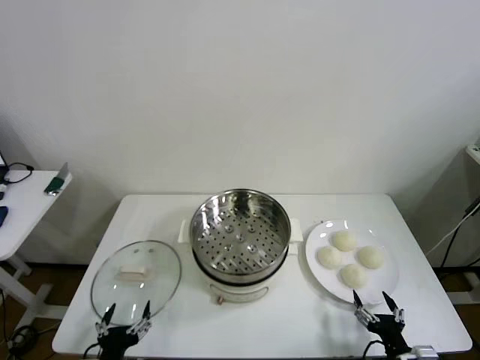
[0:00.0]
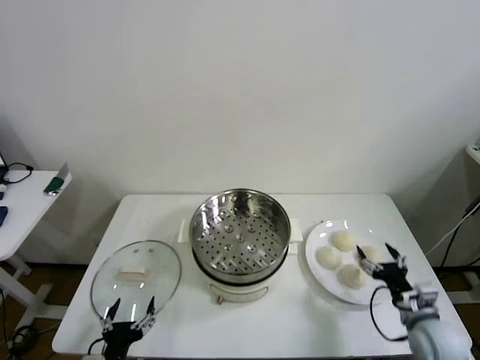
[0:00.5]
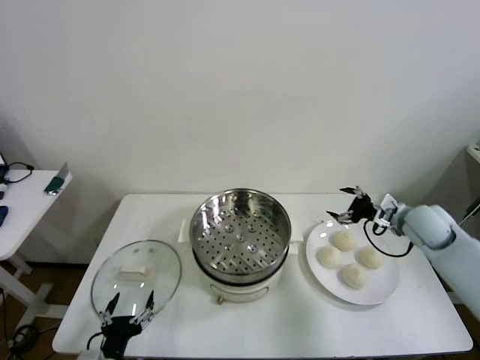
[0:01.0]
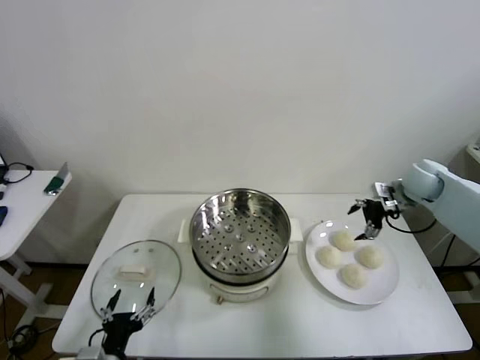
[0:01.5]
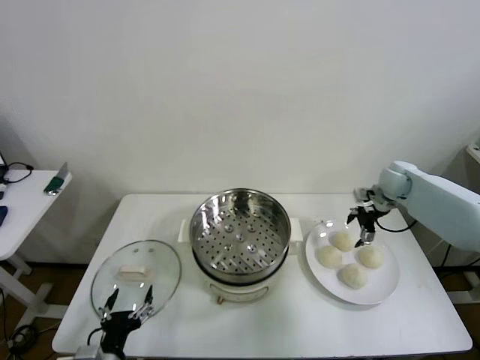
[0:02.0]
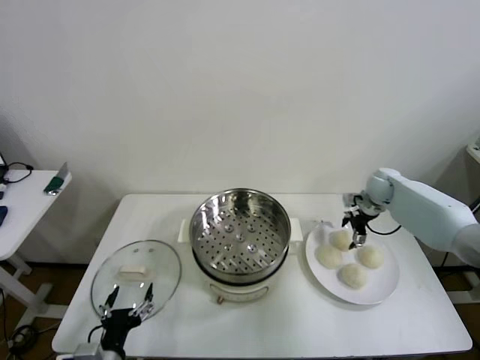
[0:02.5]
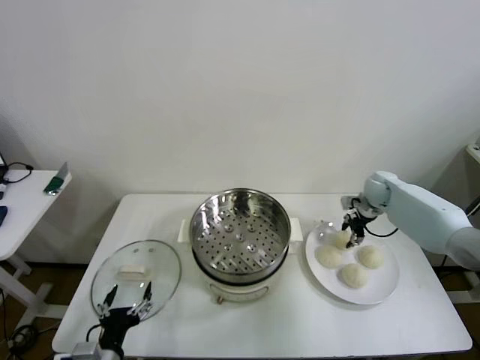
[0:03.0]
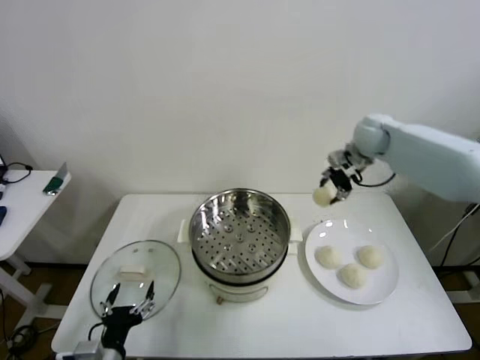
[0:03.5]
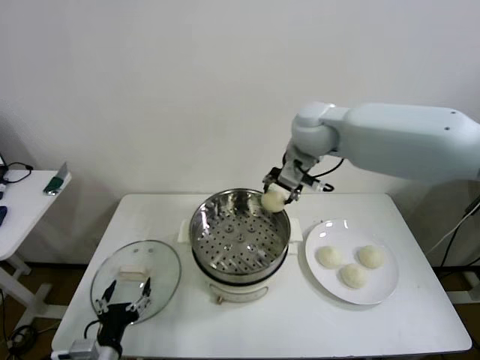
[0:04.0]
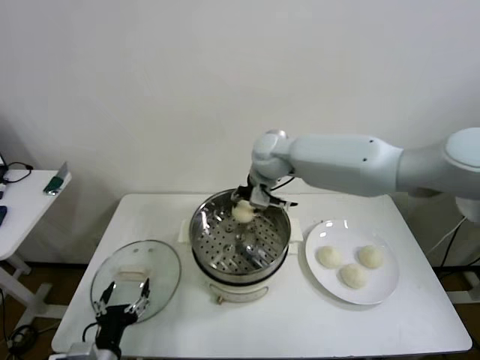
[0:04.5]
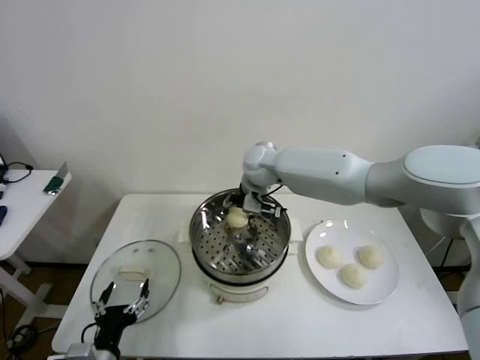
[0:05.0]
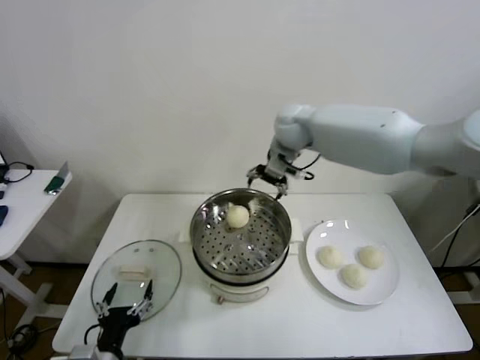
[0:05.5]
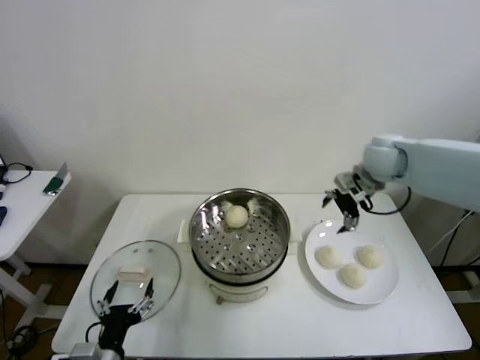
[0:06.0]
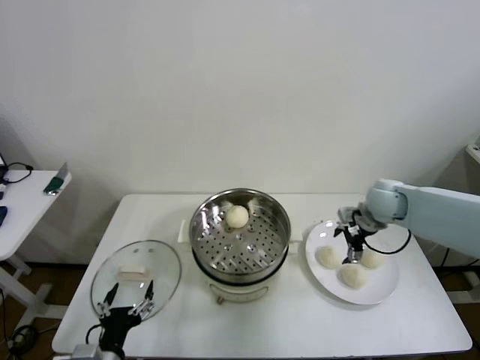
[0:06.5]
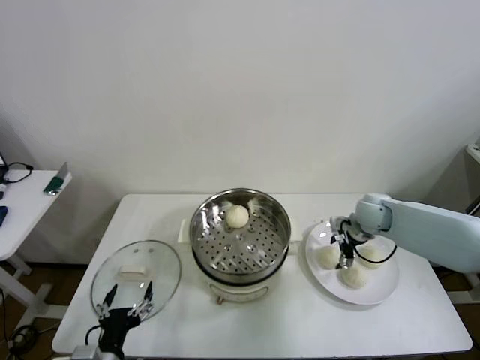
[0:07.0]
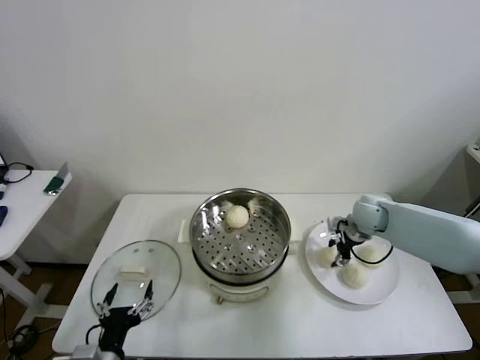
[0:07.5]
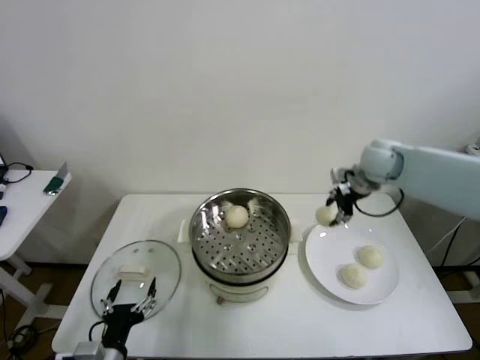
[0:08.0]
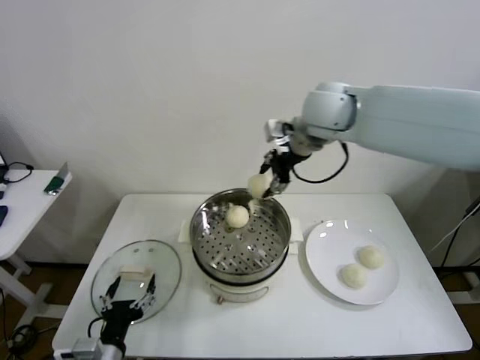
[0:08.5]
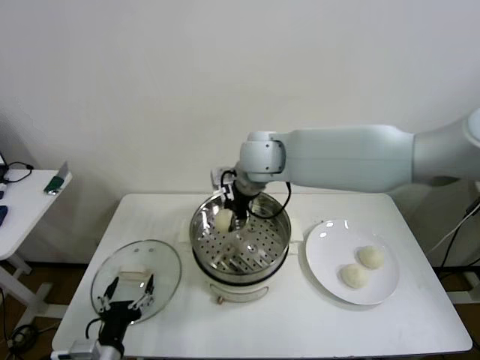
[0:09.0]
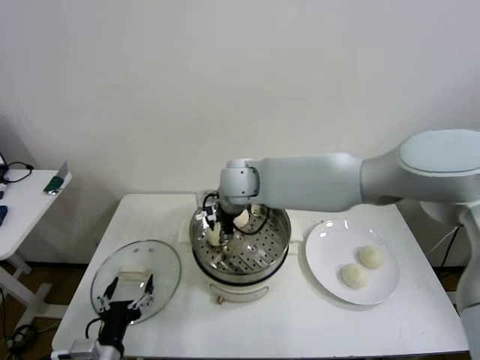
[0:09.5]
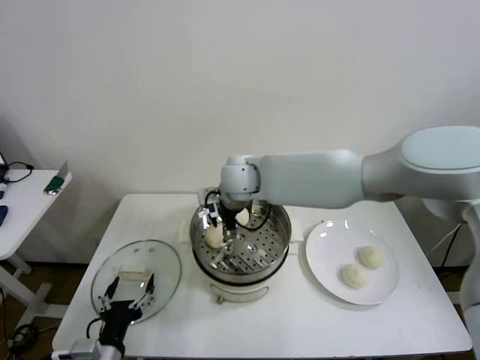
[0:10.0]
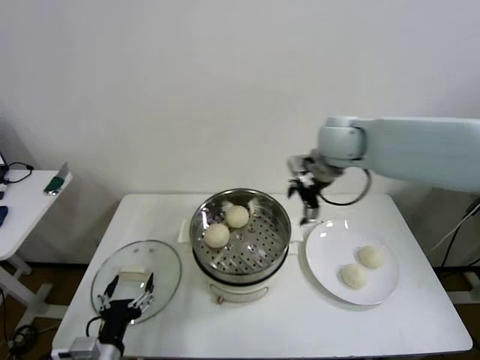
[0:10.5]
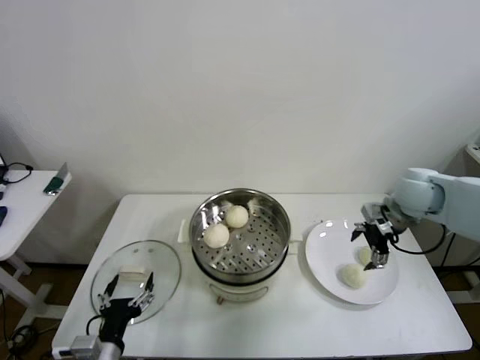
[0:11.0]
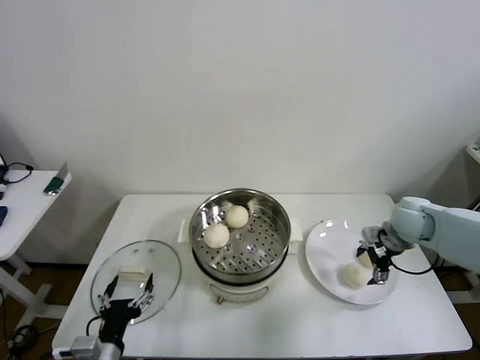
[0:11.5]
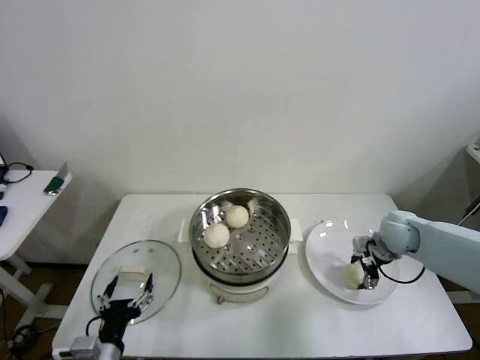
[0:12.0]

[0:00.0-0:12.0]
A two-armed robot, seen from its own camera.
Step, 0.0 to 2.5 s: Grasp the baozi in the plate with right gripper.
Step, 3.0 to 5.0 s: Place the baozi on the steamer with right gripper.
Step, 5.5 to 7.0 s: Grasp the baozi in the plate with right gripper.
Step, 7.5 to 10.0 s: Place the baozi on the steamer with right gripper.
2.0 to 4.0 s: The right gripper heads to the left and upward, covering about 35 cm, and closes up.
4.0 to 6.0 s: The right gripper shifts some 20 cm to the right and downward, and opens its fingers.
6.0 to 8.0 s: The right gripper travels downward and back again, about 15 cm each way, and closes up.
8.0 to 10.0 s: The right gripper is displaced to the left by about 30 cm, and opens its fingers.
10.0 to 12.0 s: The right gripper is displaced to the right and downward by approximately 40 cm, and closes.

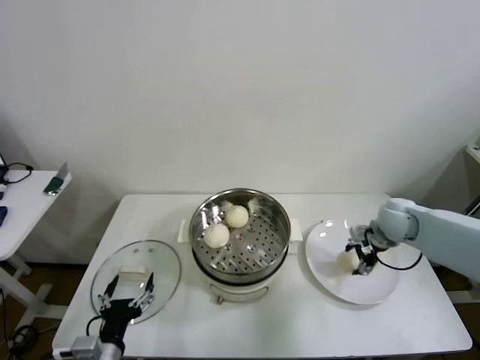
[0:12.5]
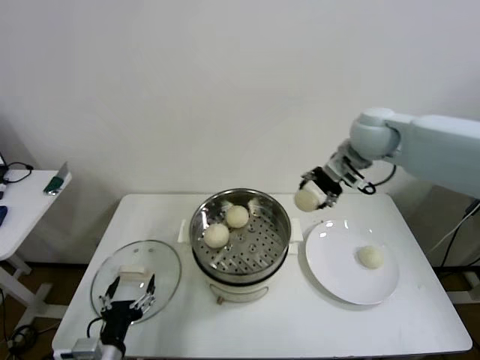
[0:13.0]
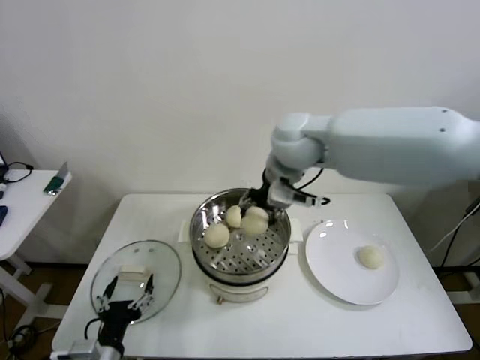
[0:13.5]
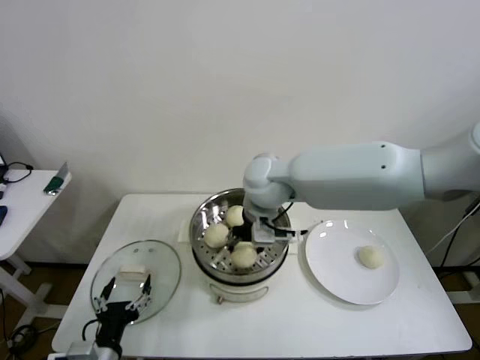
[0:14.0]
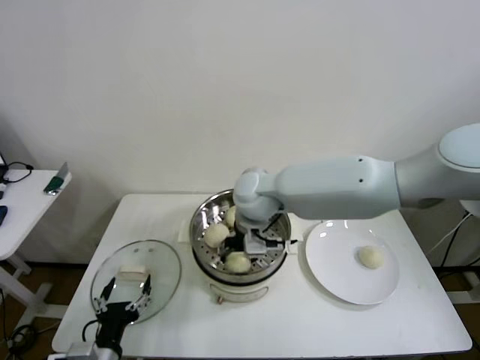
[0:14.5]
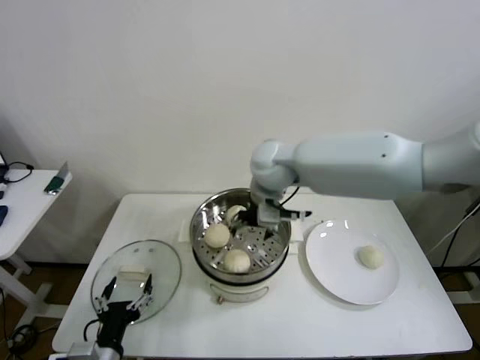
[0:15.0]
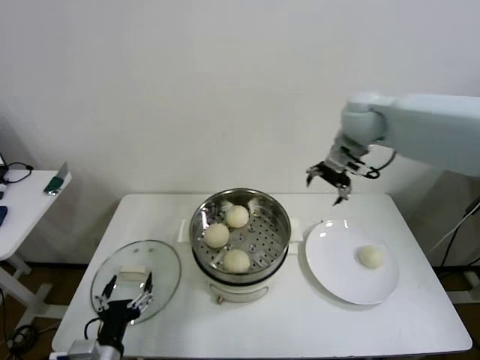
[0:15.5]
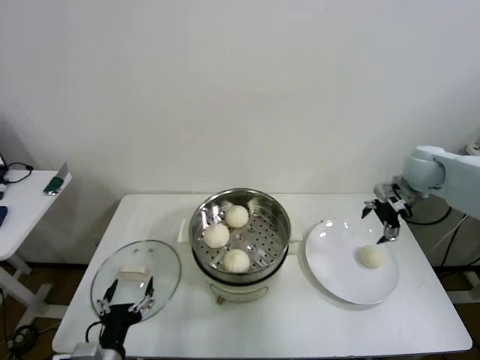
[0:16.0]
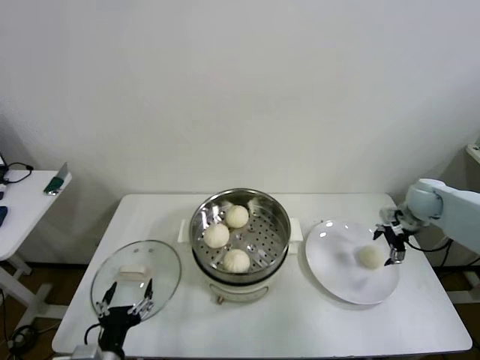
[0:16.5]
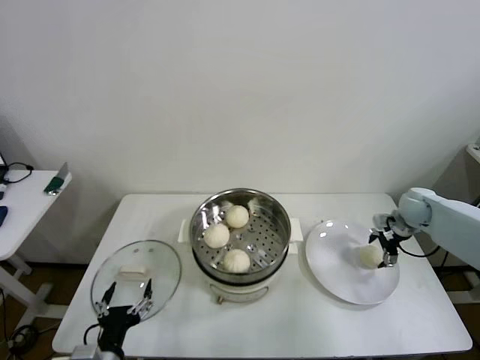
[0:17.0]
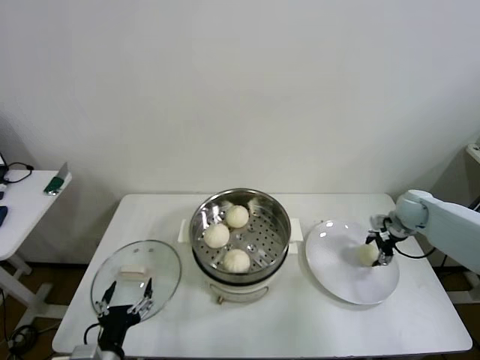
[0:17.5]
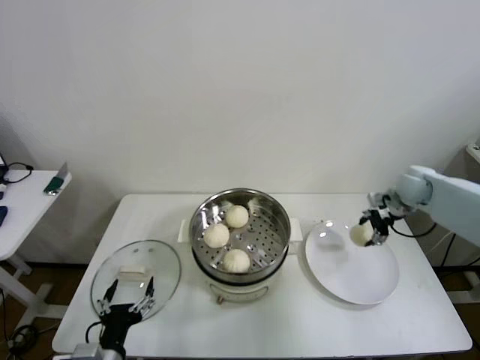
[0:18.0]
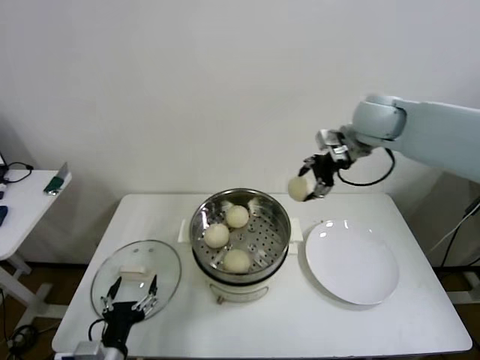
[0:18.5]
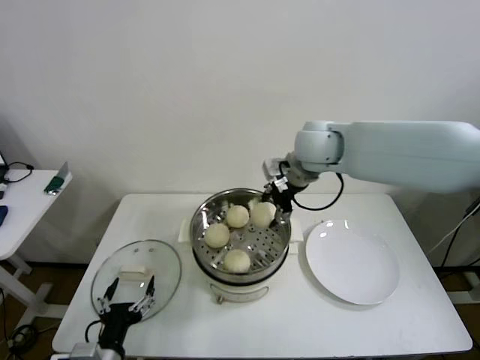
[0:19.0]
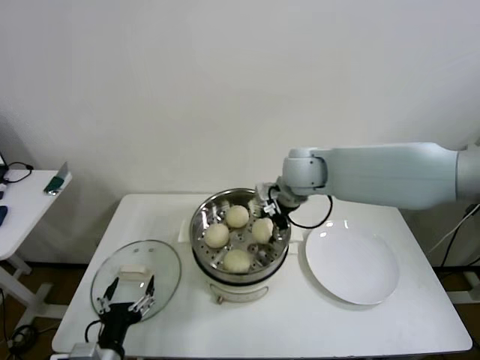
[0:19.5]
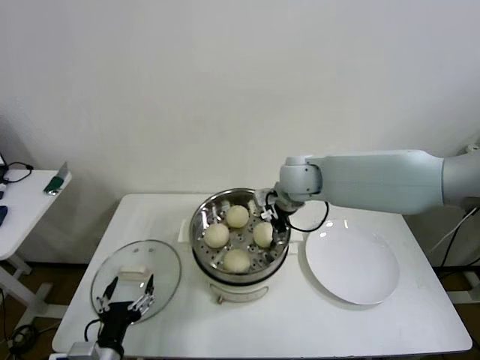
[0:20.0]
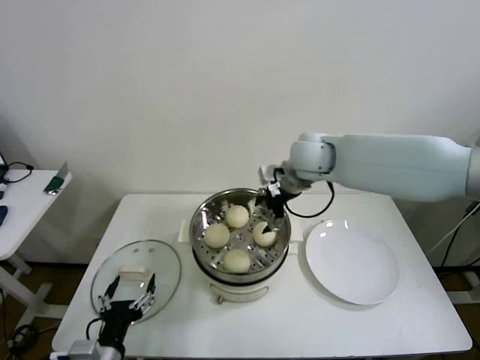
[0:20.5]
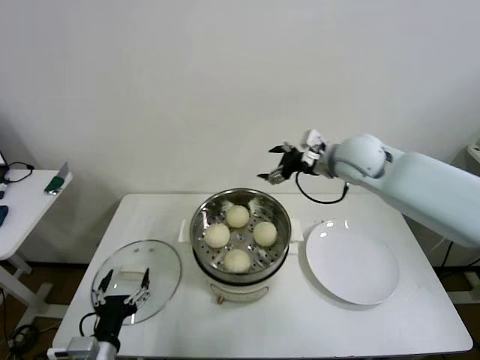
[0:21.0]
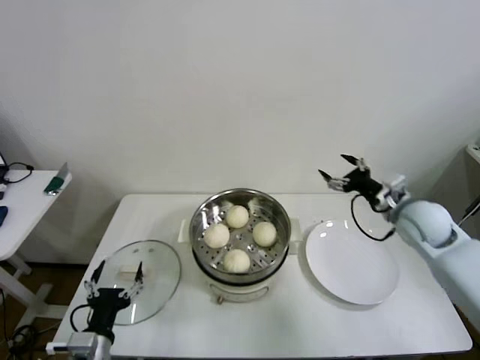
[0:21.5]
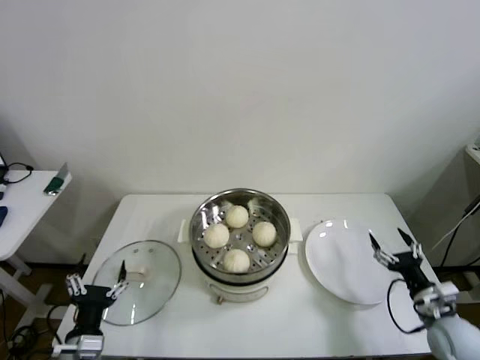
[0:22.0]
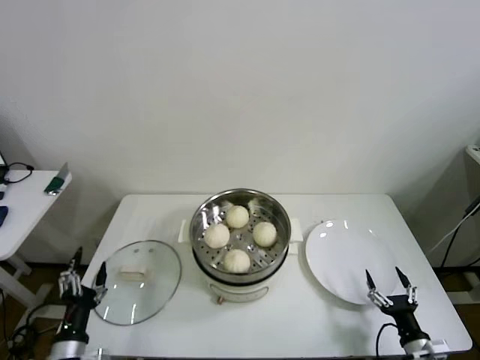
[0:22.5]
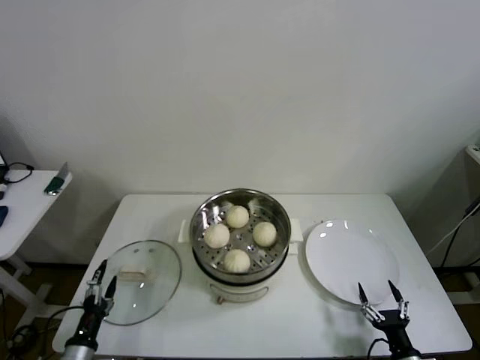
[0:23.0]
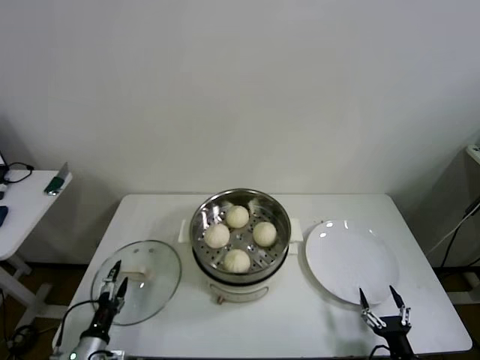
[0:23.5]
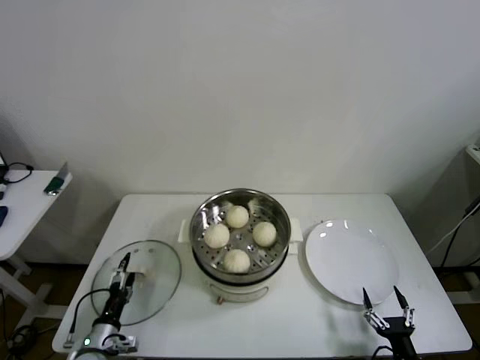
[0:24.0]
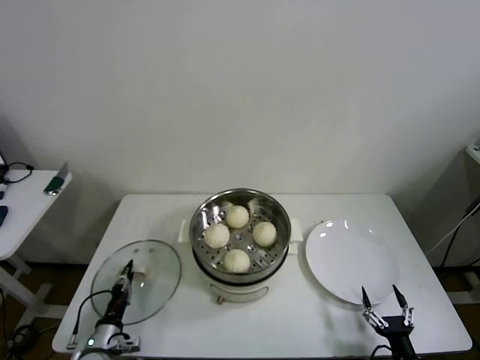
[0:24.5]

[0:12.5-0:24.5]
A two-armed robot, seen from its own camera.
Step, 12.5 to 14.5 s: Place the baozi on the steamer with right gripper.
Step, 15.0 to 17.5 s: Grasp the baozi in the plate with right gripper.
Step, 18.0 to 20.5 s: Place the baozi on the steamer with right gripper.
12.5 to 14.5 s: The right gripper shifts approximately 35 cm to the left, and opens its fingers.
14.5 to 16.5 s: The right gripper shifts roughly 40 cm to the right.
16.5 to 18.5 s: The right gripper is displaced upward and to the left by about 30 cm, and closes its fingers.
18.5 to 20.5 s: The right gripper travels to the left and downward by about 15 cm, and opens up.
20.5 to 22.5 s: The left gripper is displaced to the left by roughly 5 cm. Meanwhile the right gripper goes some 60 cm downward, backward and to the right.
22.5 to 24.5 s: The right gripper moves roughly 5 cm, while the left gripper shifts approximately 15 cm downward and forward, and closes its fingers.

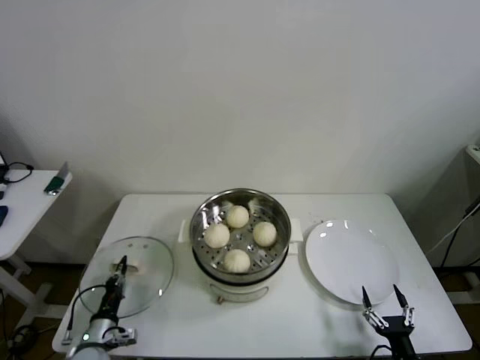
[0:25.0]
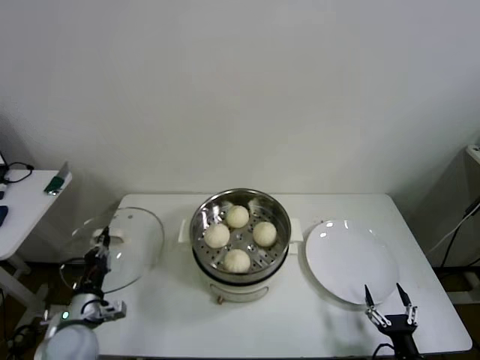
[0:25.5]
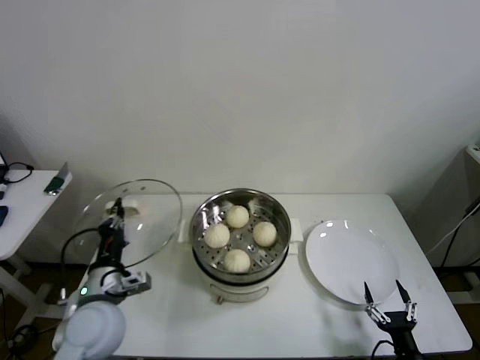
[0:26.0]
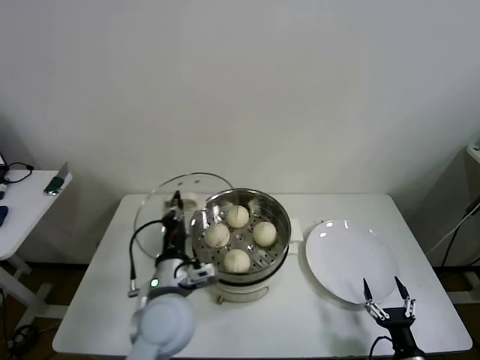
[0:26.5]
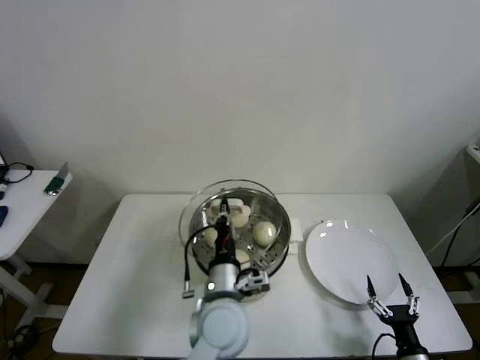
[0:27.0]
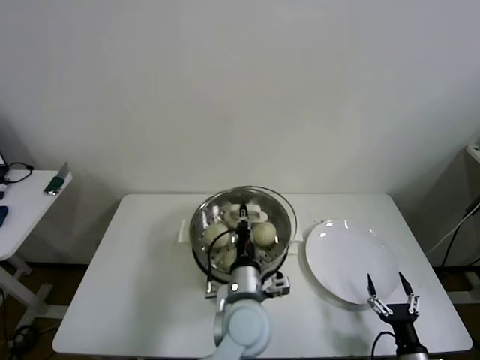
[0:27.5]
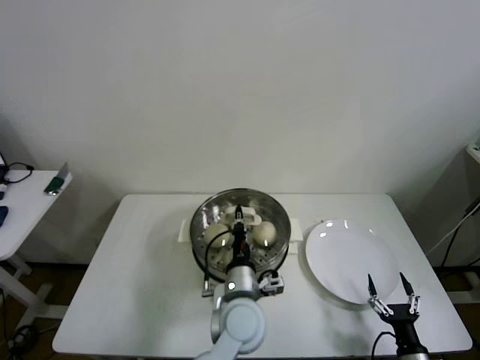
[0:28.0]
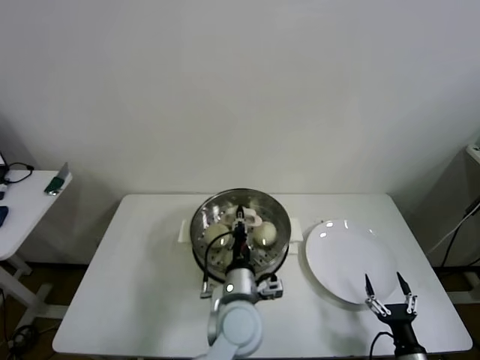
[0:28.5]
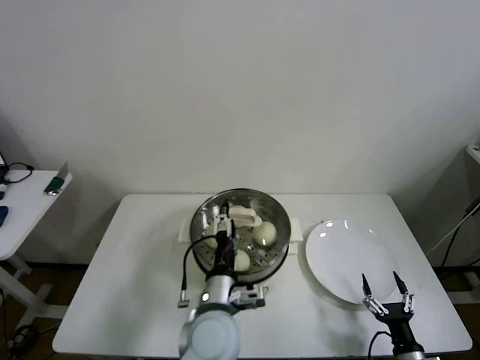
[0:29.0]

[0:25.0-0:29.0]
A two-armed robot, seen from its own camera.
25.0 to 27.0 s: The left gripper travels to the right and upward by about 35 cm.
27.0 to 29.0 s: The left gripper opens.
